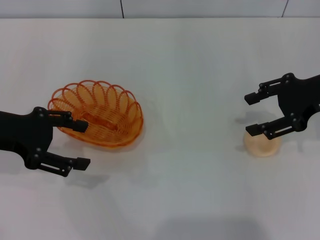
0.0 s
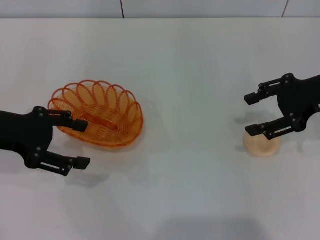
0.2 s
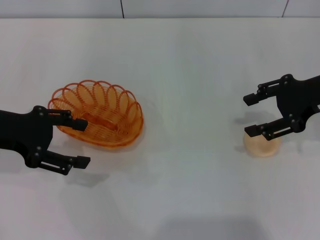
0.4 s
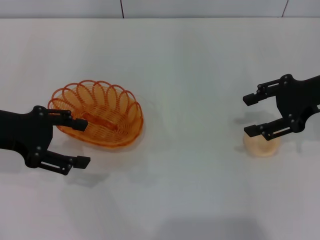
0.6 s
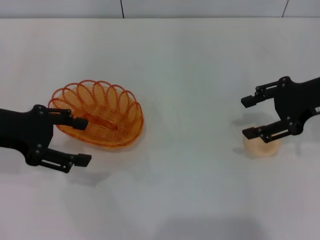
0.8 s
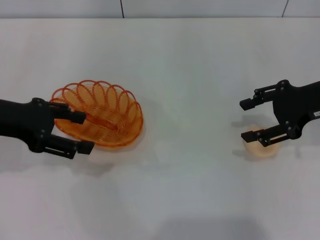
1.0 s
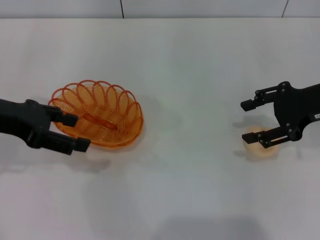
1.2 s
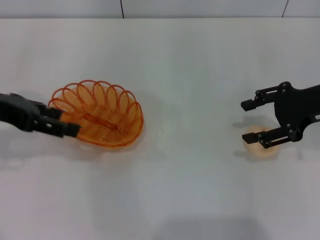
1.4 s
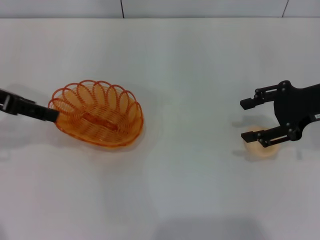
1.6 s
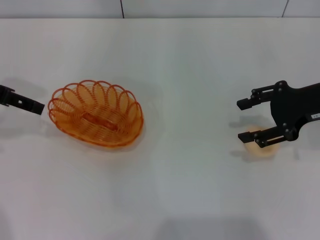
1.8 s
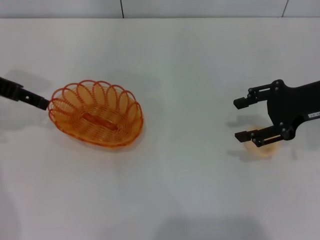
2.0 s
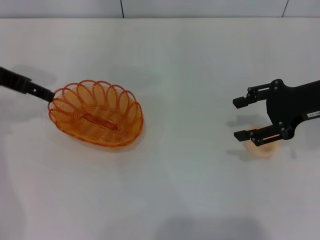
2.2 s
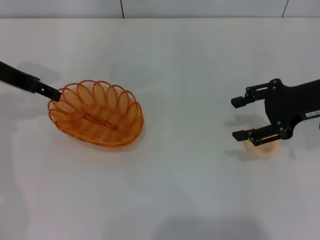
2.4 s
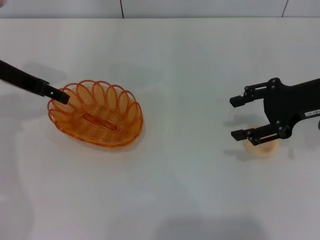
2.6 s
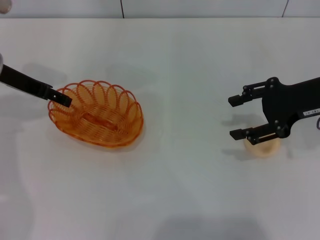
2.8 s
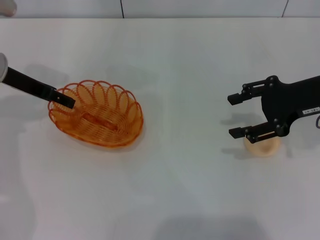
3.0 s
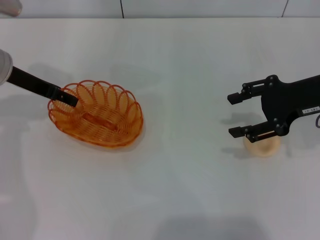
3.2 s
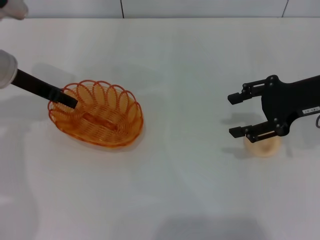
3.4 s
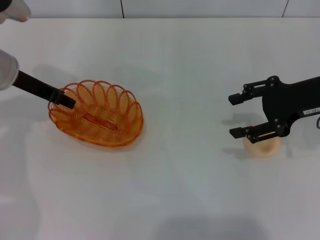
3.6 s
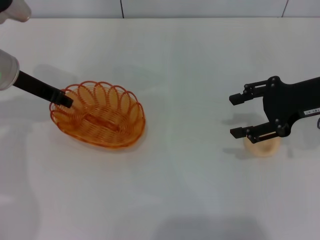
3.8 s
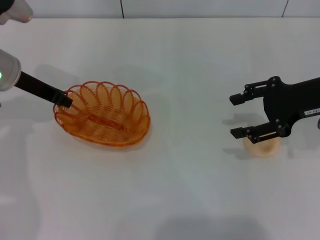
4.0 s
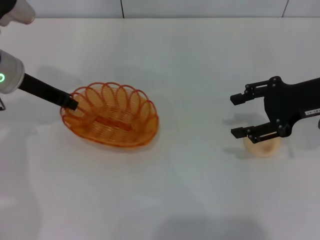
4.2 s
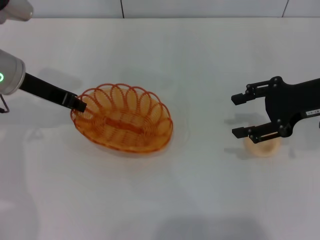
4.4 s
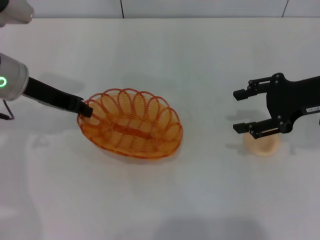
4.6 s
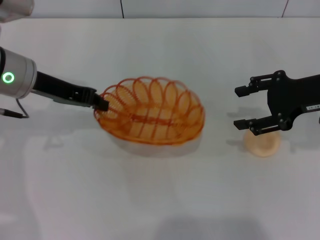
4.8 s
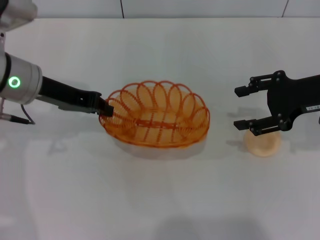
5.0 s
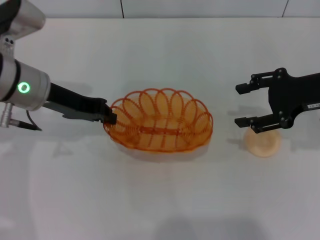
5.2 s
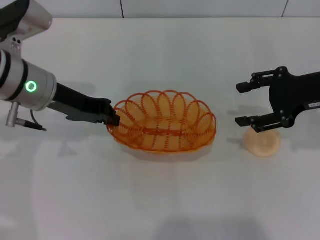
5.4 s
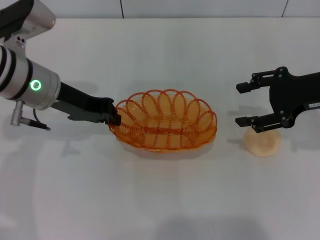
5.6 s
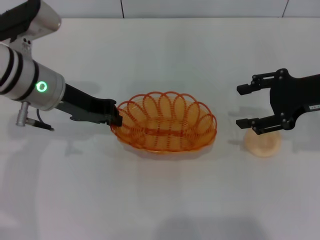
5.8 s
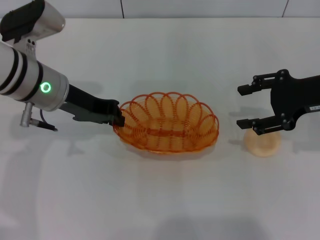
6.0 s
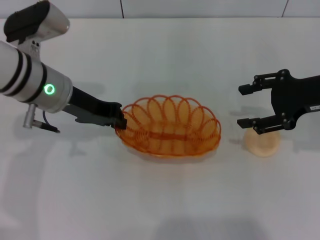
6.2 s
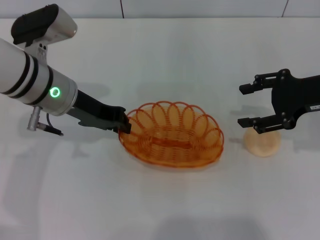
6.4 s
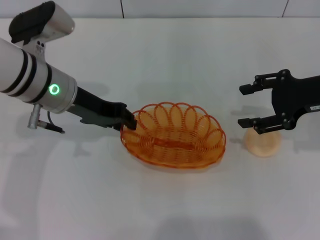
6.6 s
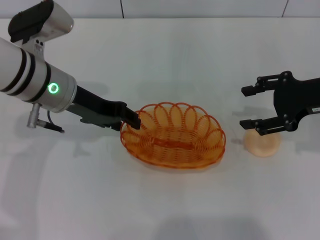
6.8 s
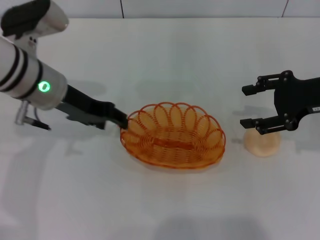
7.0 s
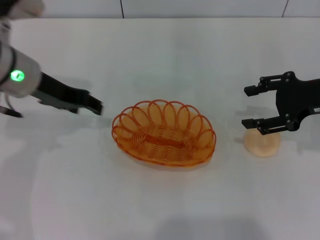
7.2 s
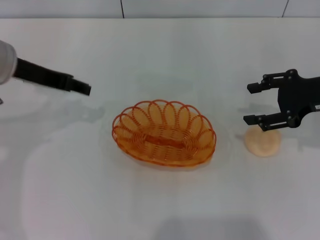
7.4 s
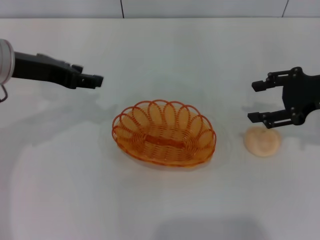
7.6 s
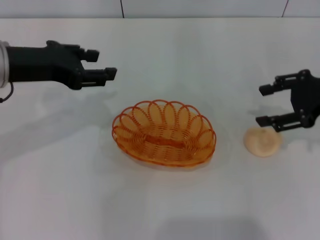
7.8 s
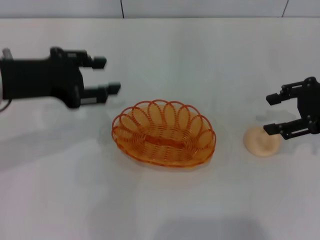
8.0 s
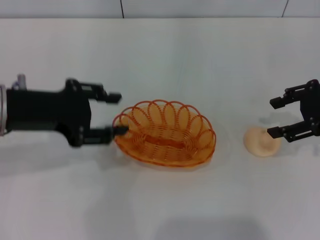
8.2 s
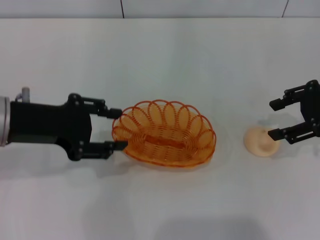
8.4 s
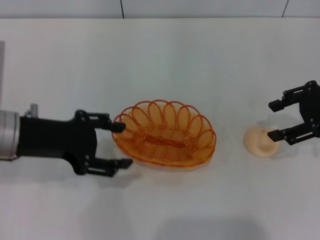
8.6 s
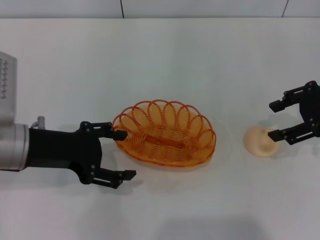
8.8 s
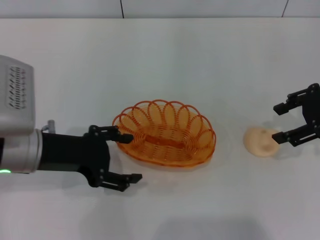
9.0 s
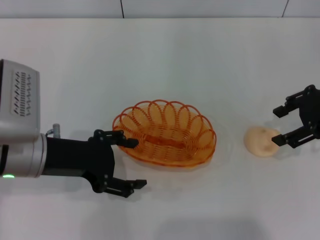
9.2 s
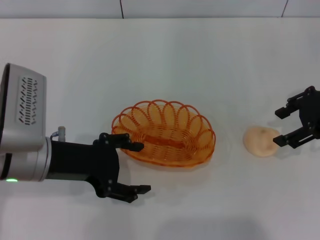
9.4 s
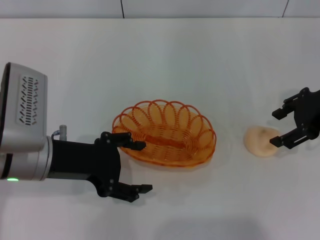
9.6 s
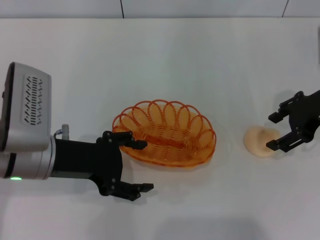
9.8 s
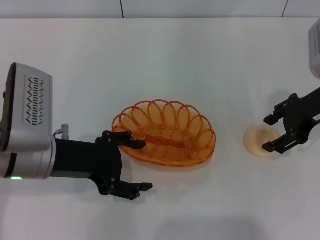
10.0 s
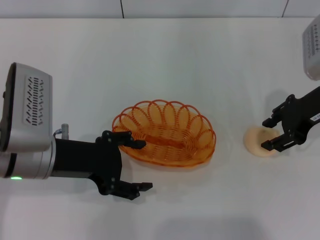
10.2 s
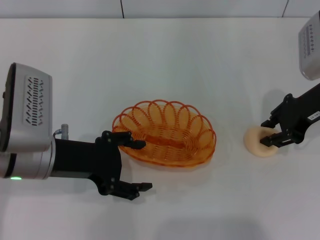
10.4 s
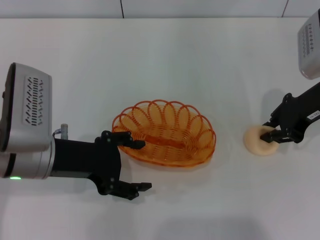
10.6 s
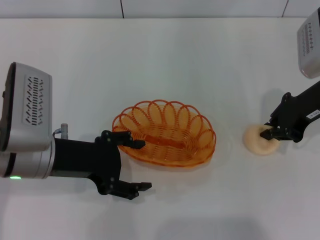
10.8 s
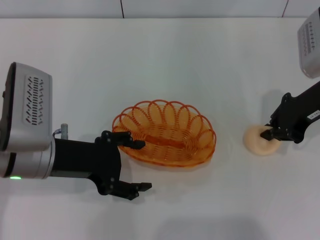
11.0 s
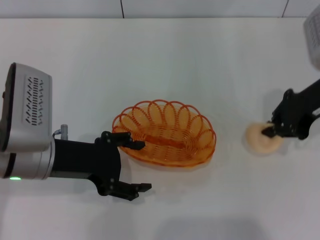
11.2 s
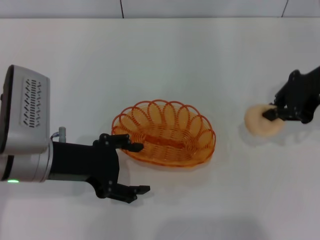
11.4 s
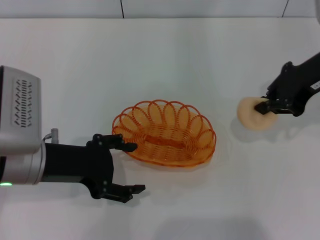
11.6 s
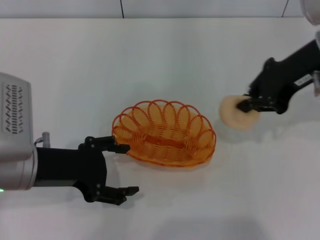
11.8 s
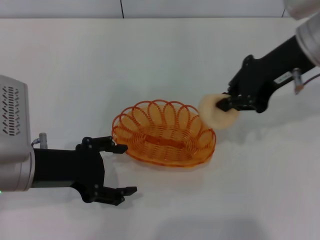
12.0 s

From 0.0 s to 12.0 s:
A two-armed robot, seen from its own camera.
Step, from 0.0 s to 4.6 s: Pick up the basket with the left gripper.
Step, from 4.8 s to 7.0 s: Place the basket in the center of view with the left gripper.
Step, from 7.2 s to 11.4 s: Pick up the egg yolk pastry with the right gripper.
From 0.0 s to 1.6 s: The left gripper goes about 5 cm upward.
From 1.6 s to 3.0 s: The left gripper shifts about 10 cm forward and downward.
From 3.0 s to 4.4 s: The left gripper closes its fingers.
From 4.4 s to 6.0 s: The left gripper goes roughly 5 cm to the right.
From 6.0 s to 7.6 s: The left gripper moves to the left, approximately 5 cm, and opens its fingers.
From 7.6 s to 9.0 s: The left gripper goes approximately 10 cm downward and backward.
From 9.0 s to 10.4 s: The right gripper travels to the left by some 5 cm.
From 10.4 s to 12.0 s: The right gripper moves upward and to the left, roughly 10 cm, and closes up.

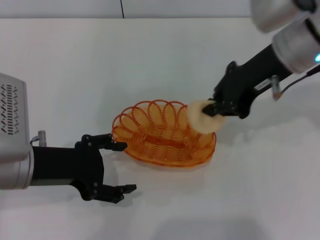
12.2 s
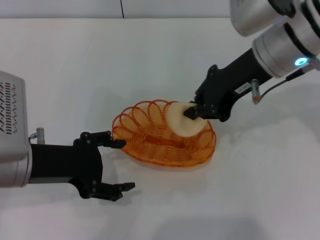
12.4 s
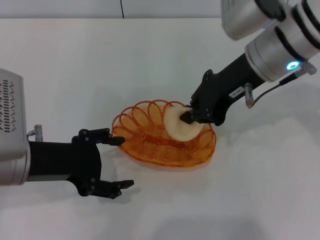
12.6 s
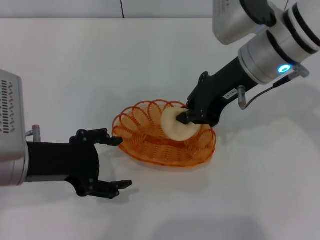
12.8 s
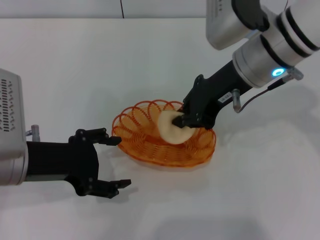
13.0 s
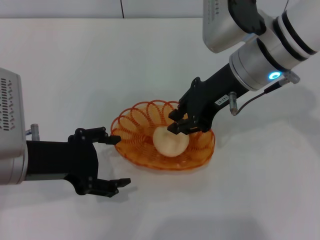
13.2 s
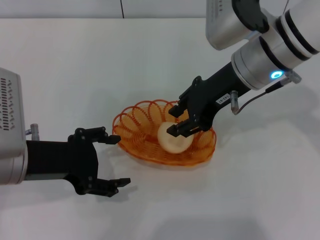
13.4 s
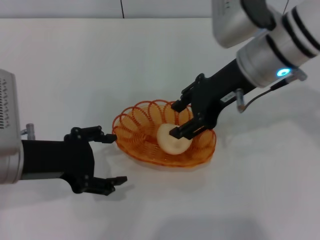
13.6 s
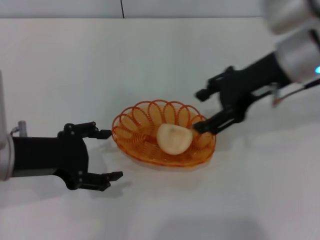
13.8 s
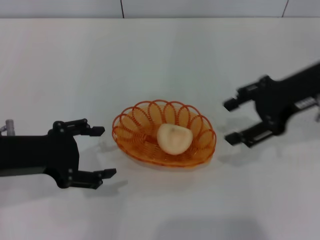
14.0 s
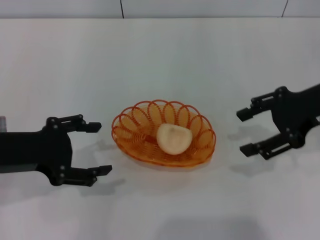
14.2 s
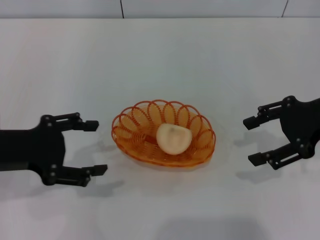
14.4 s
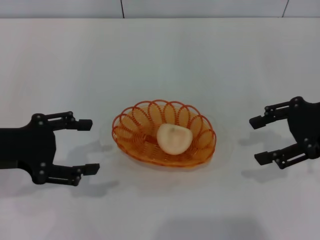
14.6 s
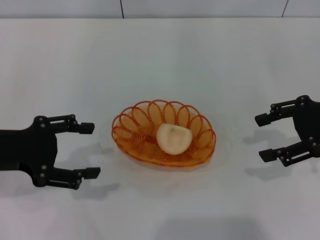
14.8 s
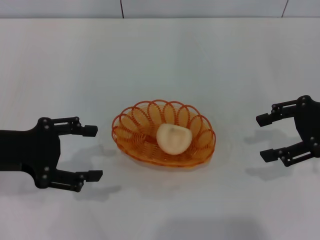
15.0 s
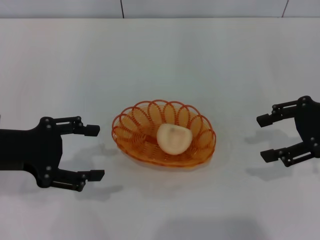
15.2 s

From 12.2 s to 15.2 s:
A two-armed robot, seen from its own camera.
Step, from 12.2 s to 13.6 s: Place the egg yolk pastry into the basket with the right gripper.
From 12.2 s to 13.8 s: The right gripper opens its fingers.
From 13.8 s to 15.2 s: The right gripper heads to the right, covering some 15 cm.
